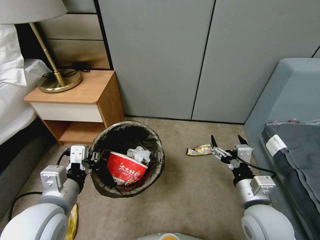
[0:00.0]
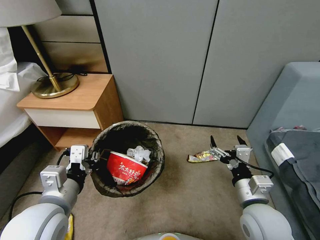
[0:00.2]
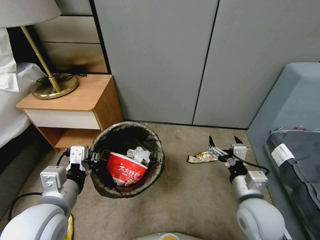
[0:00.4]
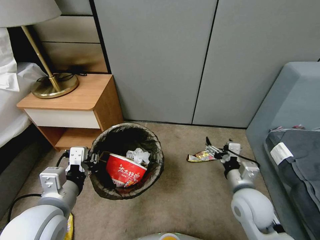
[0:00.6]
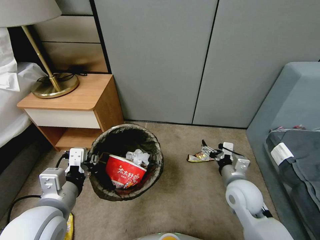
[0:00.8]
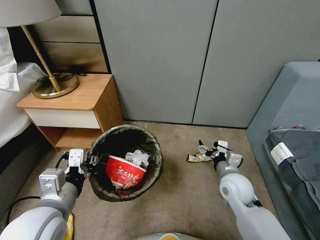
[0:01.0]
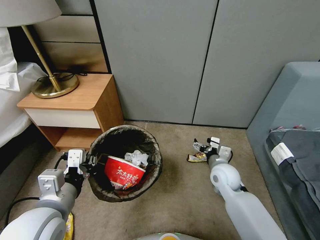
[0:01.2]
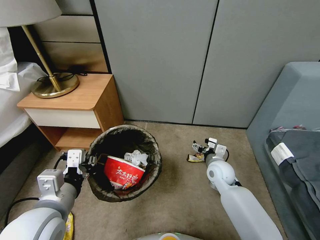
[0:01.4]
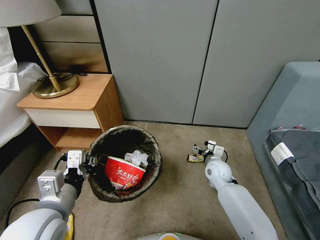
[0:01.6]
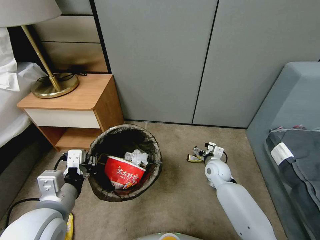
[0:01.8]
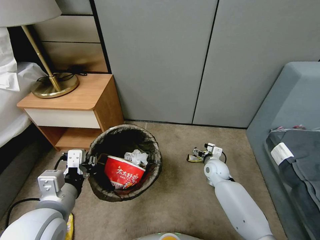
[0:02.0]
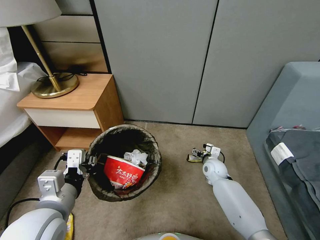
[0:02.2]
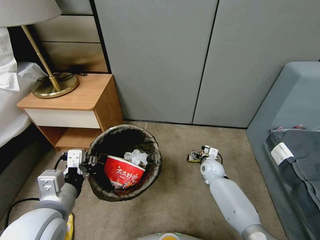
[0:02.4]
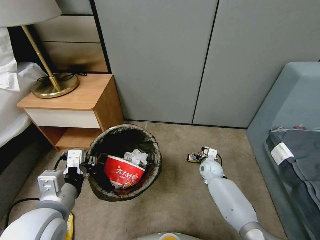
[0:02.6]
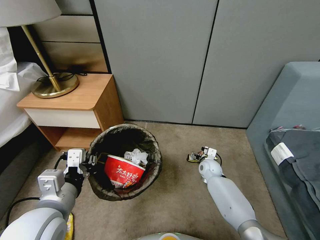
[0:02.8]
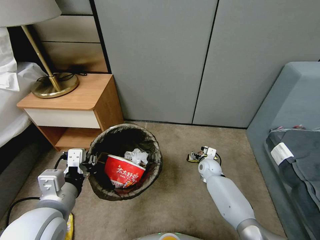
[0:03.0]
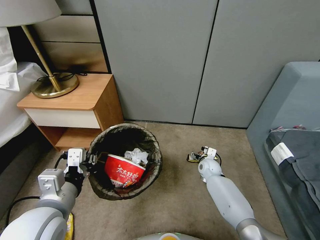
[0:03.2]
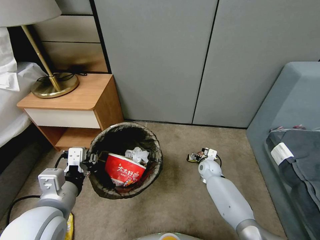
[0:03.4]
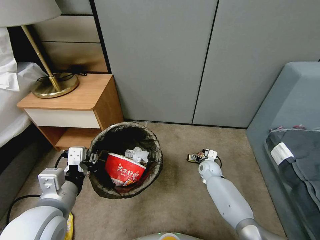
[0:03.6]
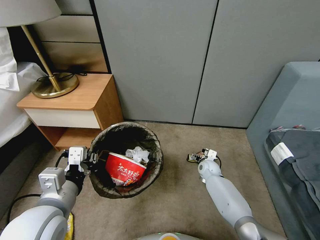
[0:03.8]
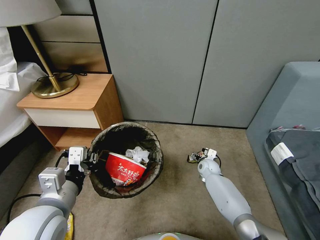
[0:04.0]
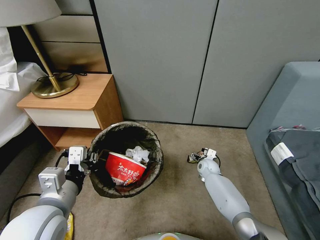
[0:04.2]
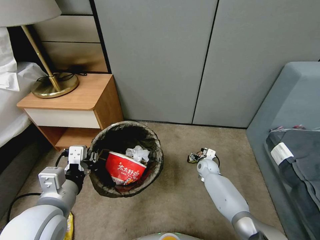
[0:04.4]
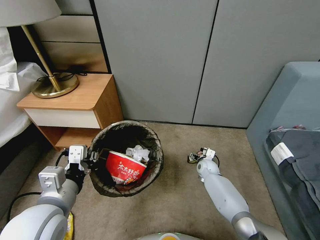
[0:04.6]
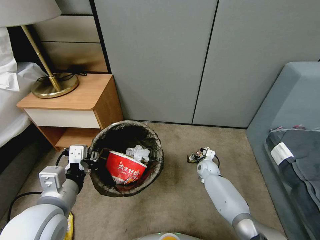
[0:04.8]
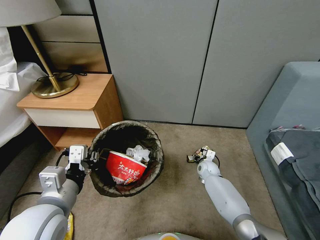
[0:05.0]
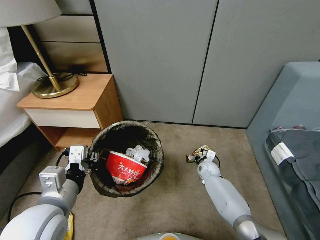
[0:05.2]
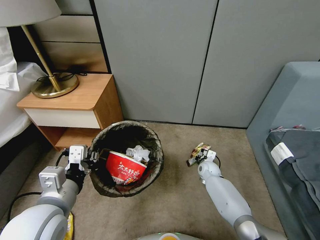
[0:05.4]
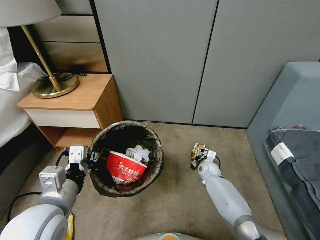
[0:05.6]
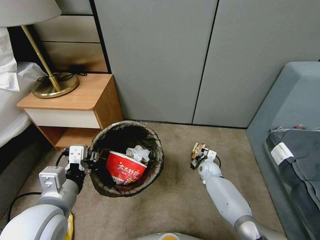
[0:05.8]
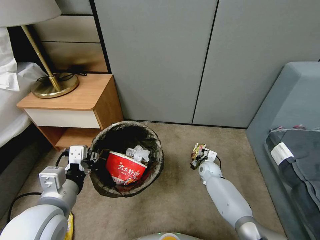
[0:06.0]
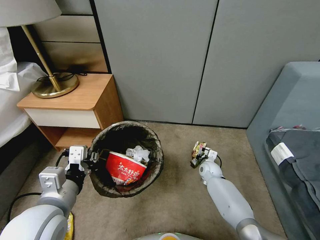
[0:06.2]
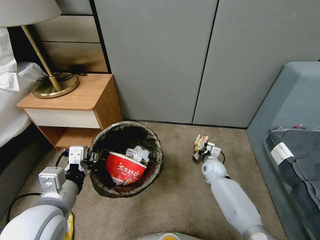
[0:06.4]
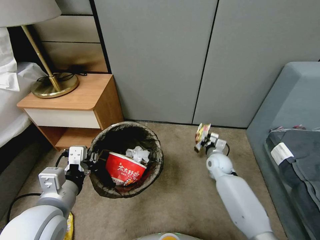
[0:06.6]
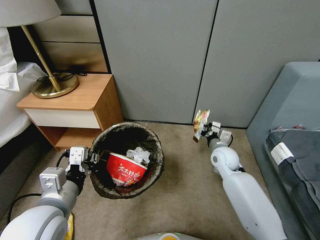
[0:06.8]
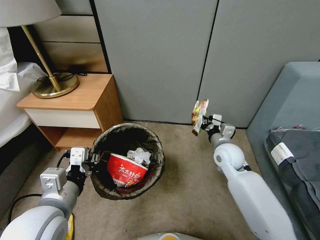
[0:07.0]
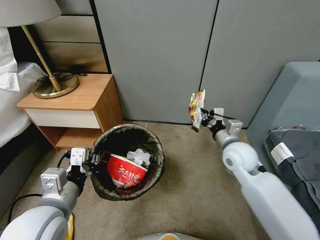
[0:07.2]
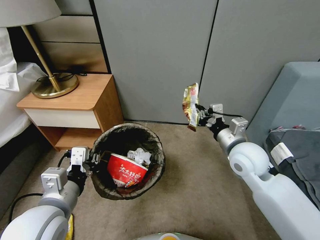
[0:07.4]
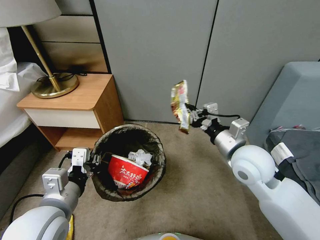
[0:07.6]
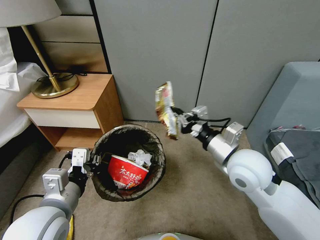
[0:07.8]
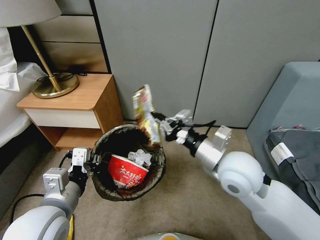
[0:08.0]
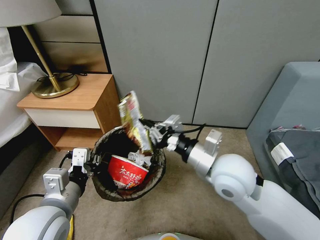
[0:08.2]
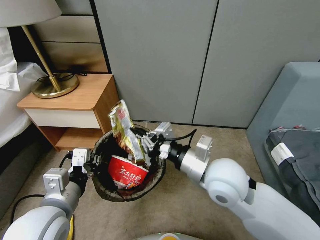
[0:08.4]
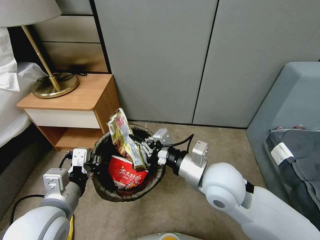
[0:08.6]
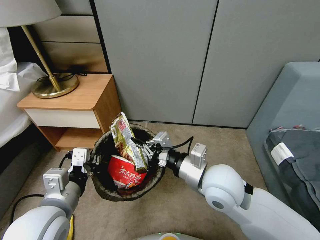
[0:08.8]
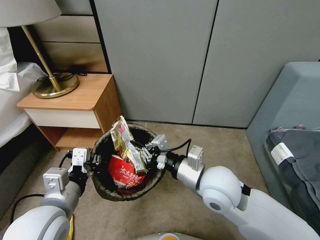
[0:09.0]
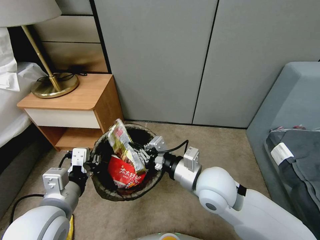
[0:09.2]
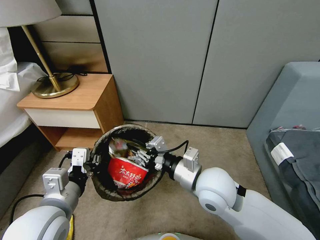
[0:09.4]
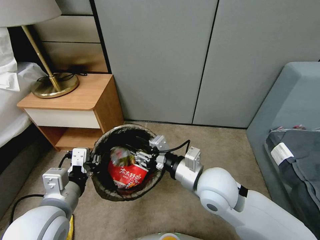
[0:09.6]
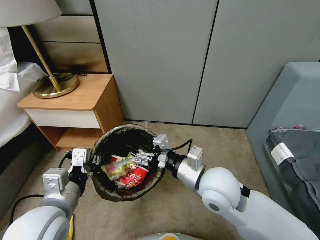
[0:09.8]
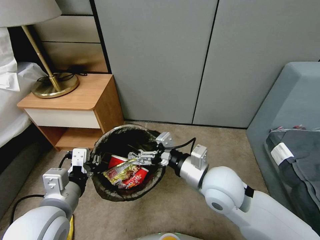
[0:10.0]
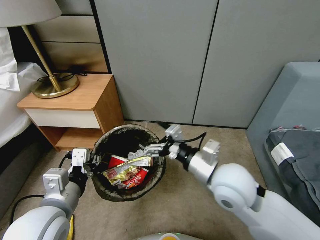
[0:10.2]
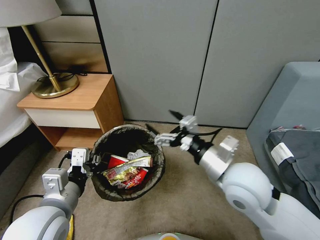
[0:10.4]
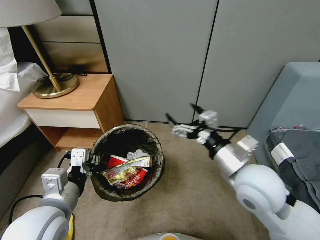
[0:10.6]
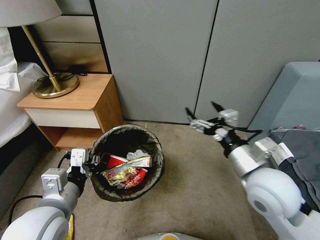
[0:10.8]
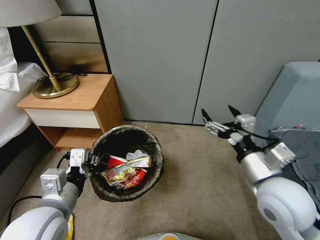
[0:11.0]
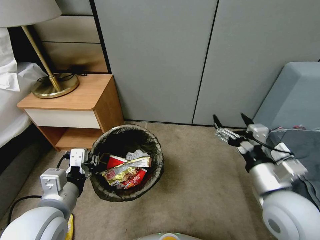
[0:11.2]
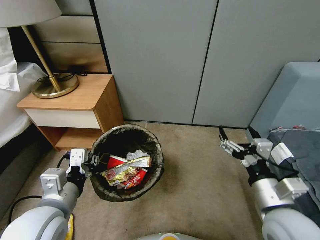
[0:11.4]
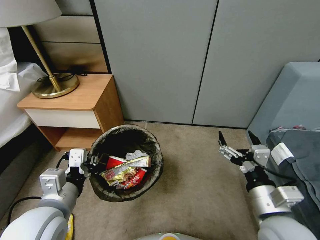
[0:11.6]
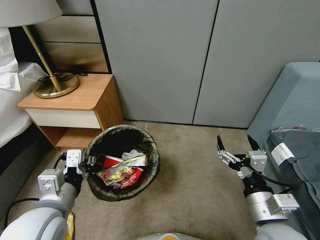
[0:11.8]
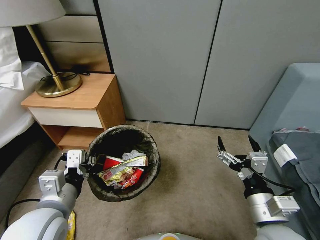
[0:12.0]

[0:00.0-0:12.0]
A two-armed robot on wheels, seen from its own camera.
Task of the whole recording: Pick up the trash bin, then pick up the garbage from the floor and place it into the trash bin.
0:00.0 to 0:01.6: The right gripper heads forward and downward, covering some 25 cm.
0:01.6 to 0:03.0: The right gripper heads downward and forward, covering some 10 cm.
0:03.0 to 0:04.4: The grippers make only small movements.
0:04.4 to 0:06.0: The right gripper closes up.
0:06.0 to 0:07.6: The right gripper travels upward by approximately 35 cm.
0:07.6 to 0:09.0: The right gripper moves to the left and backward, roughly 10 cm.
0:09.0 to 0:10.4: The right gripper ends up approximately 5 cm from where it was, and opens.
0:10.4 to 0:12.0: The right gripper shifts about 15 cm backward, downward and to the right.

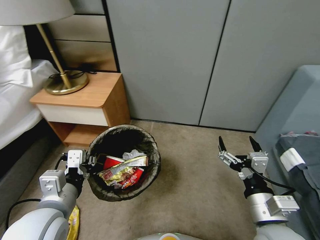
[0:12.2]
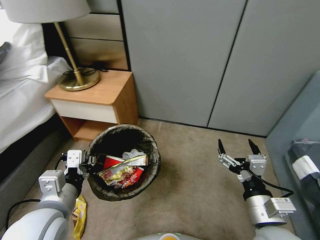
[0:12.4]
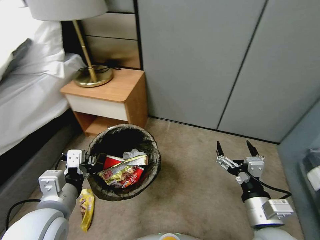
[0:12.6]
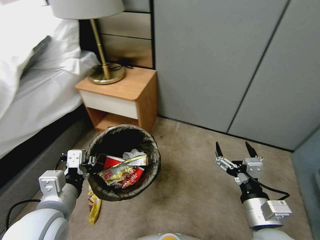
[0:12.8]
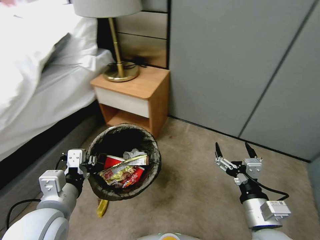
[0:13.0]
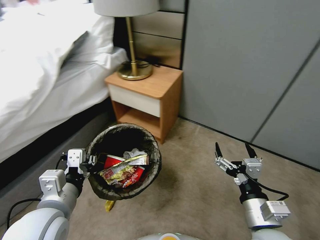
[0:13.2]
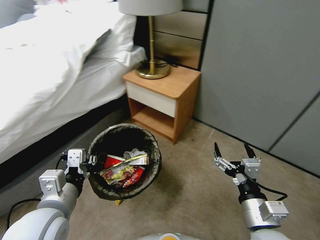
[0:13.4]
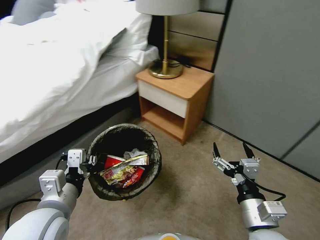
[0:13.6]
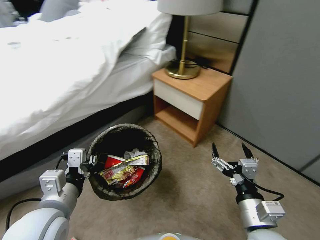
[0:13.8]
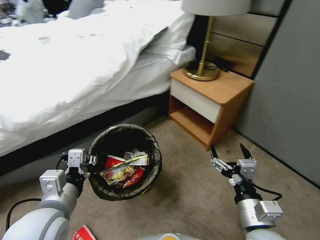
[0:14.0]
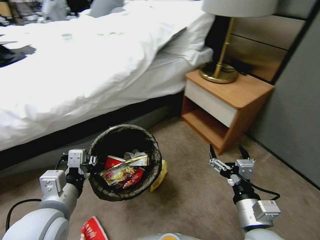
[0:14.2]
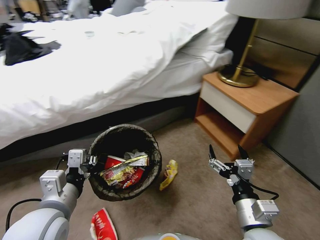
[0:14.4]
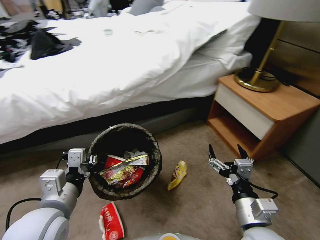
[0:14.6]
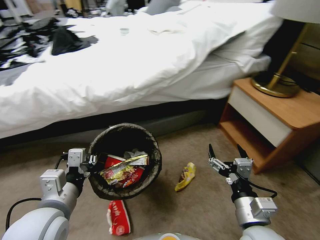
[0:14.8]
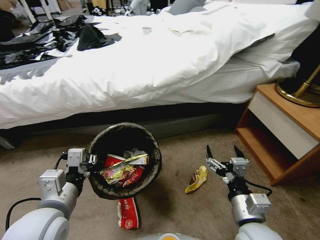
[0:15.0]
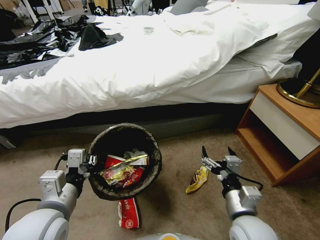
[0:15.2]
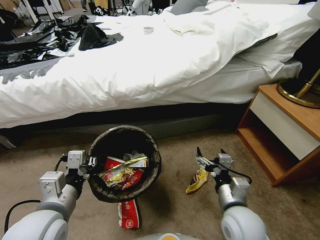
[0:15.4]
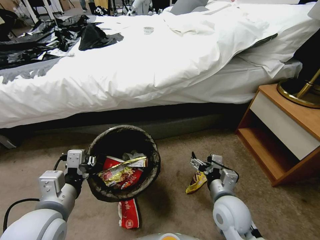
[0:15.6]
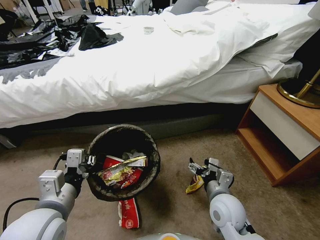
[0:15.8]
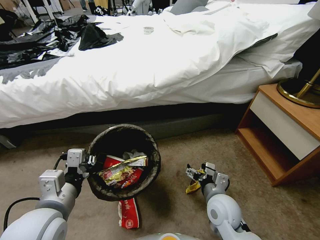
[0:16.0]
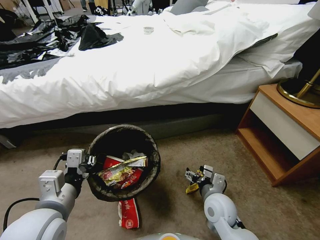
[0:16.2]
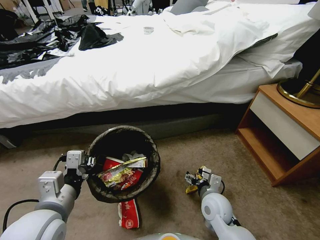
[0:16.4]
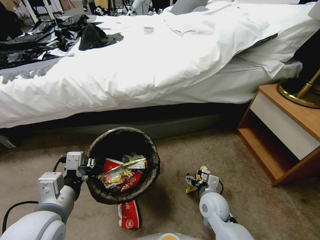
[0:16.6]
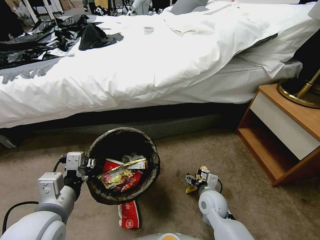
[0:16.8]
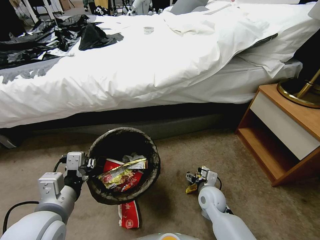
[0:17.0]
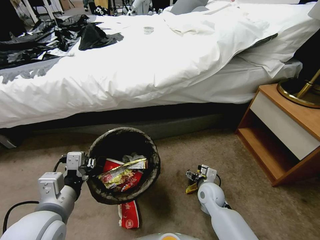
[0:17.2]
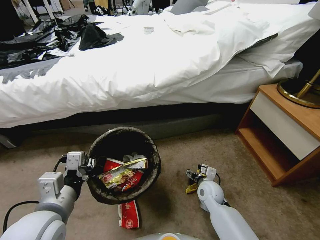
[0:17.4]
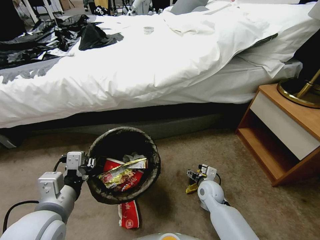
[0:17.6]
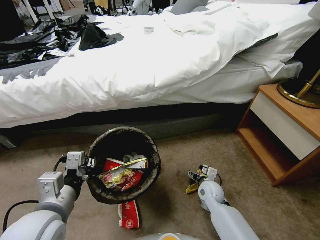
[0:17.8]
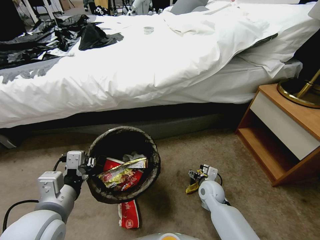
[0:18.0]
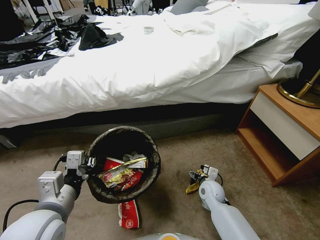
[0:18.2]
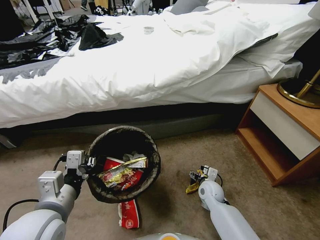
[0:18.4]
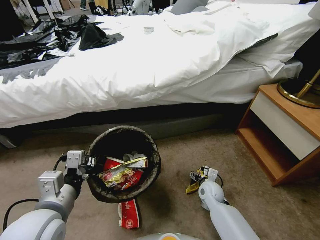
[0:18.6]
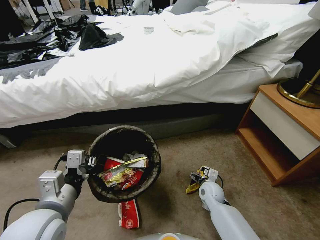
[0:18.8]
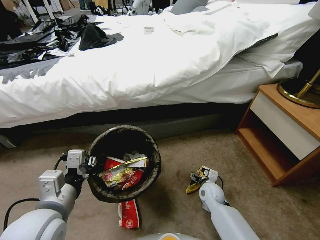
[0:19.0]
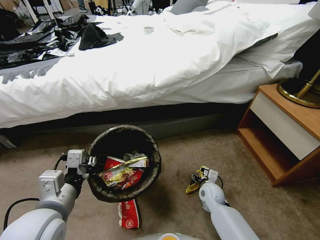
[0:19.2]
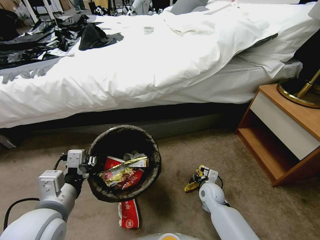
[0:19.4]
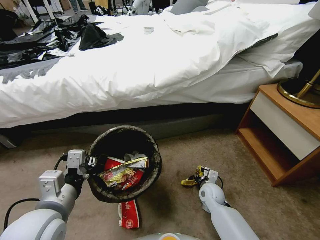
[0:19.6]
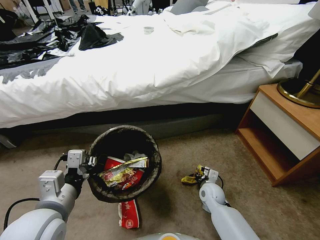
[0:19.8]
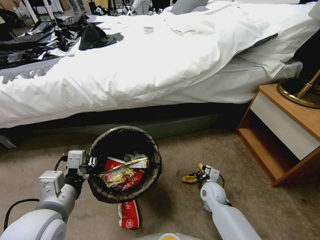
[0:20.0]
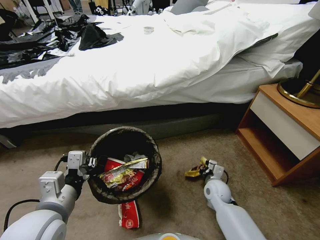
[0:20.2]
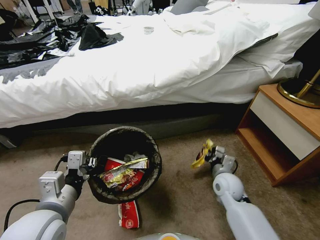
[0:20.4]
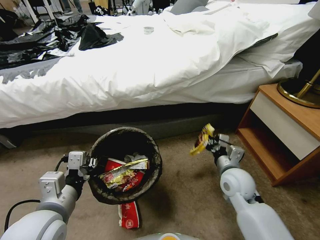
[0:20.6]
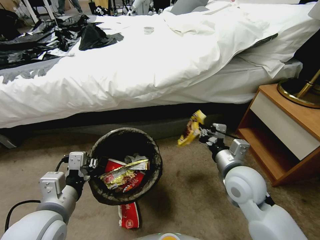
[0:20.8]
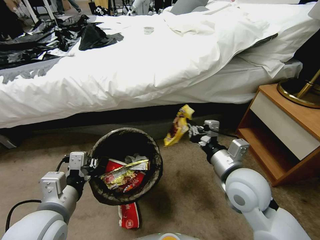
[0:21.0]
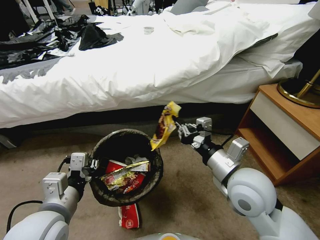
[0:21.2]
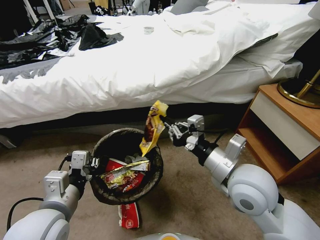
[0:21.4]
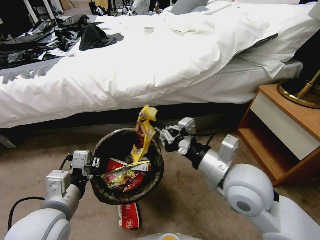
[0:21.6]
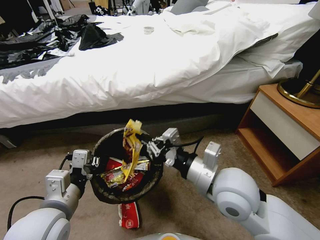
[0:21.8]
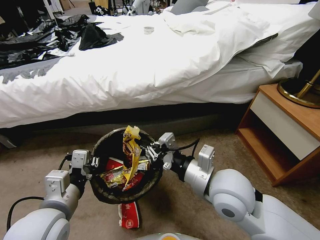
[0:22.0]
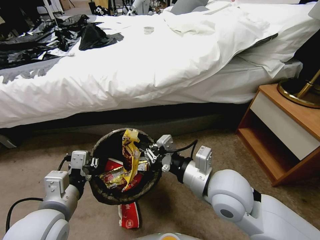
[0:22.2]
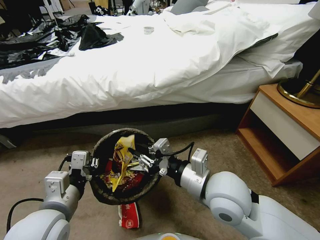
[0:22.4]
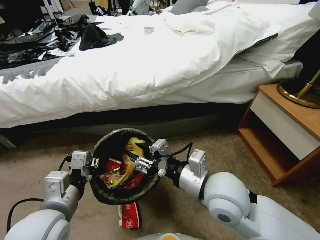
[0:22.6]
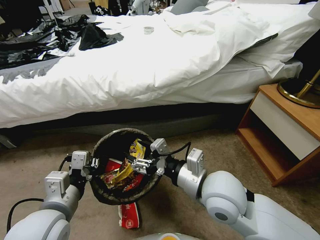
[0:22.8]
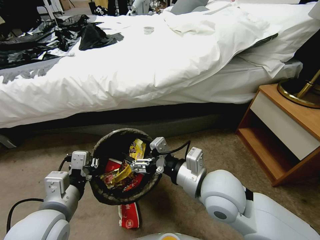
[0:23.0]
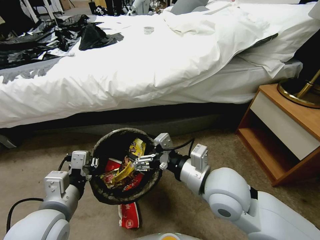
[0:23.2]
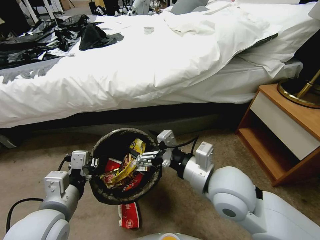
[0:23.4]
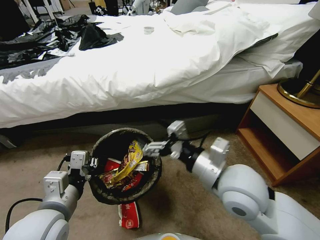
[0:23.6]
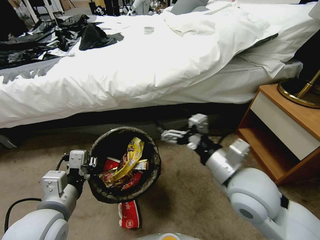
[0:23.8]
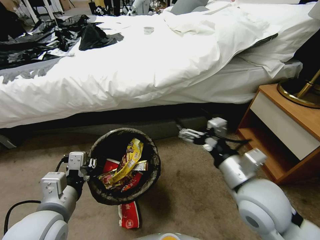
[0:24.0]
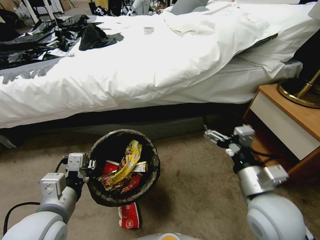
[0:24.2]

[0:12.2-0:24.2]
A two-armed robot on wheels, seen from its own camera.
Task of the whole recording: Pick up the trash bin, then pick up the garbage from the floor and place it into the trash bin.
0:15.2 to 0:16.6: The right gripper shifts roughly 15 cm downward and forward.
0:16.6 to 0:18.2: The right gripper heads forward and downward, covering roughly 10 cm.
0:18.2 to 0:19.8: The right gripper closes.
0:19.8 to 0:21.2: The right gripper travels upward by some 30 cm.
0:21.2 to 0:22.6: The right gripper moves to the left, roughly 5 cm, and opens.
0:22.6 to 0:24.2: The right gripper travels to the right by roughly 10 cm, and opens up.
